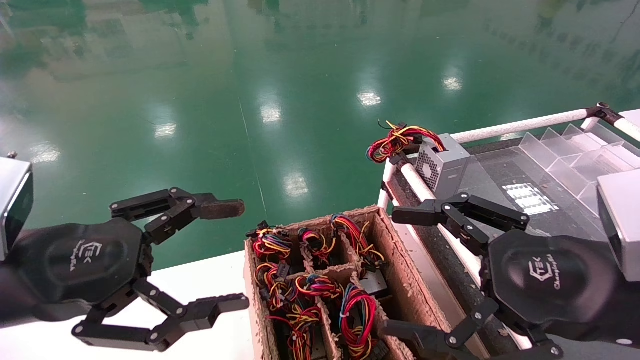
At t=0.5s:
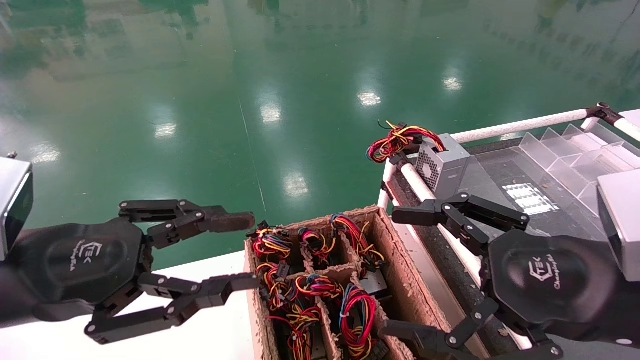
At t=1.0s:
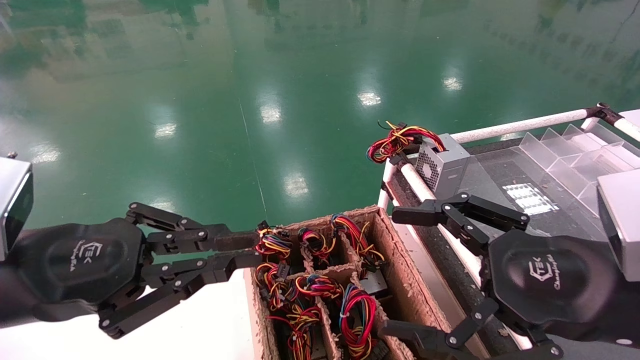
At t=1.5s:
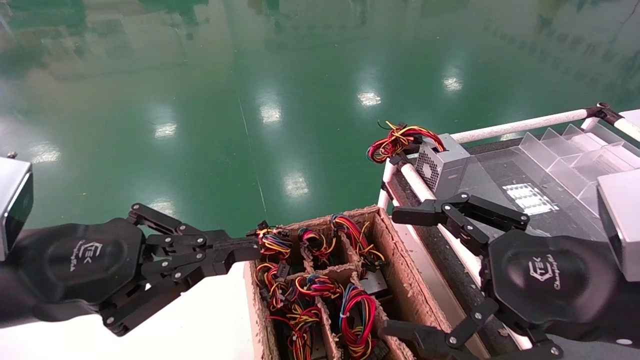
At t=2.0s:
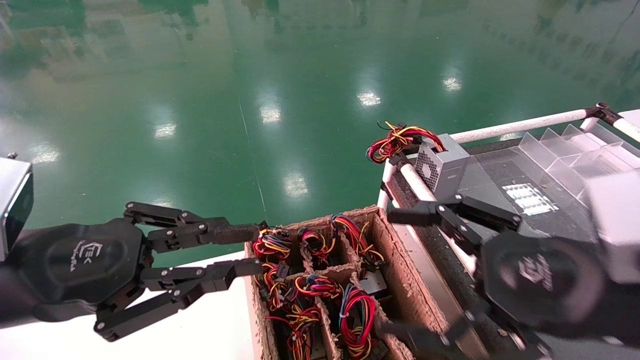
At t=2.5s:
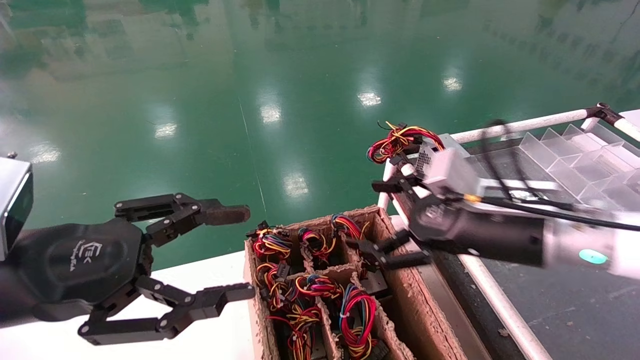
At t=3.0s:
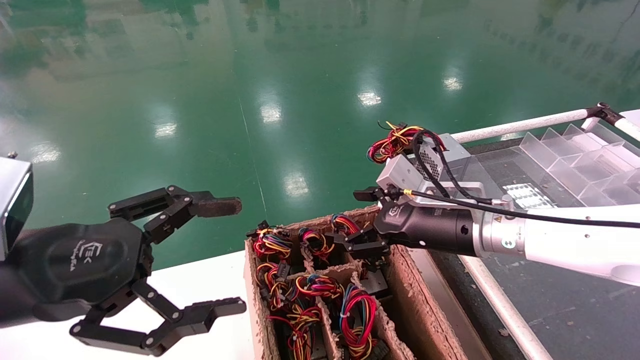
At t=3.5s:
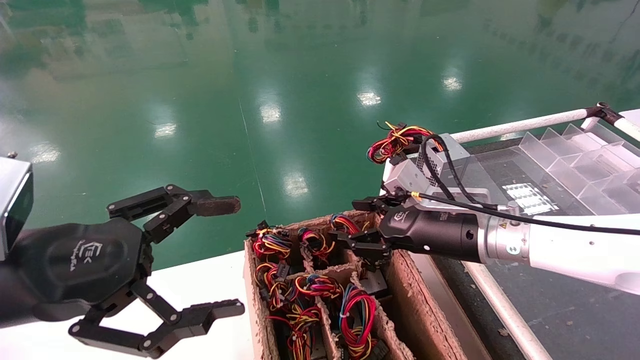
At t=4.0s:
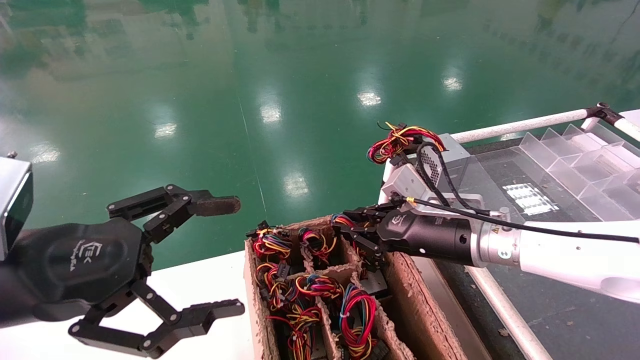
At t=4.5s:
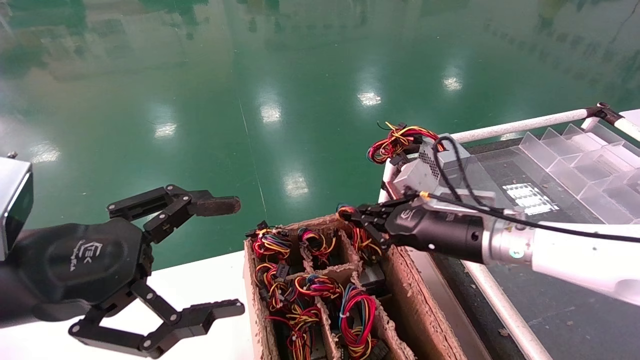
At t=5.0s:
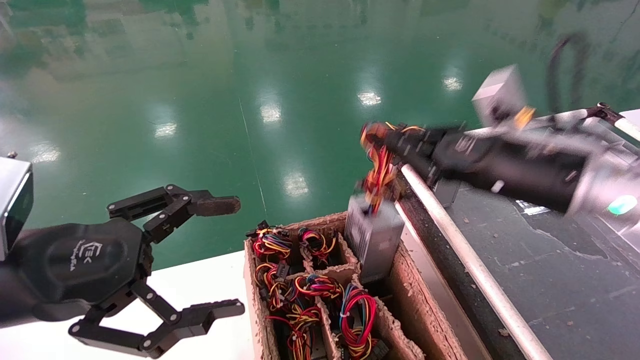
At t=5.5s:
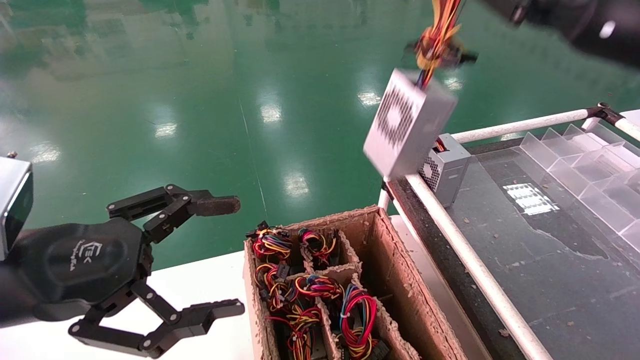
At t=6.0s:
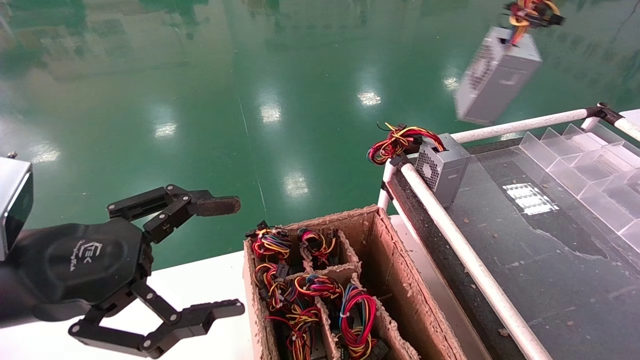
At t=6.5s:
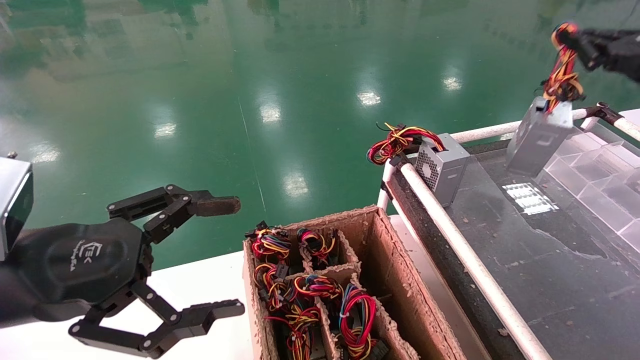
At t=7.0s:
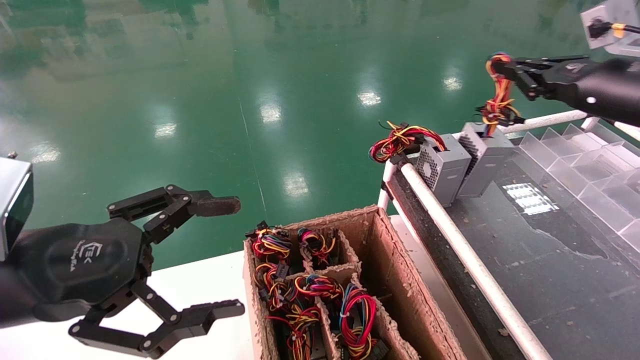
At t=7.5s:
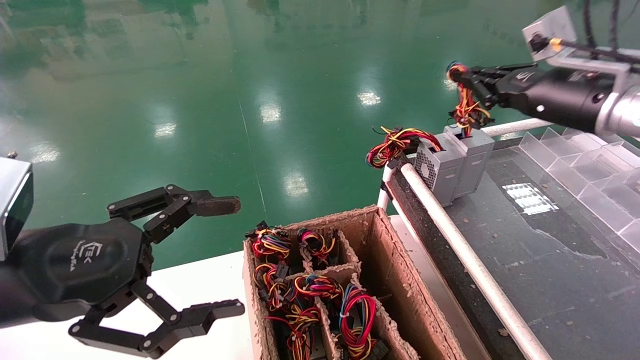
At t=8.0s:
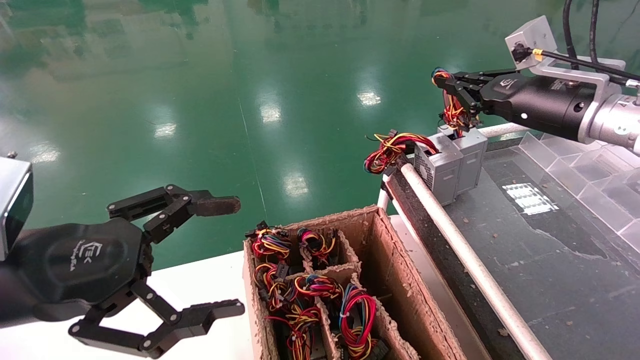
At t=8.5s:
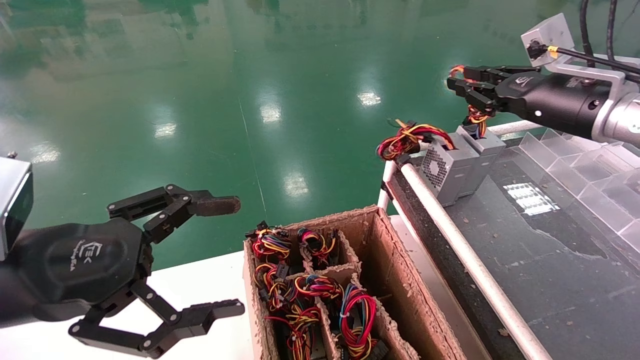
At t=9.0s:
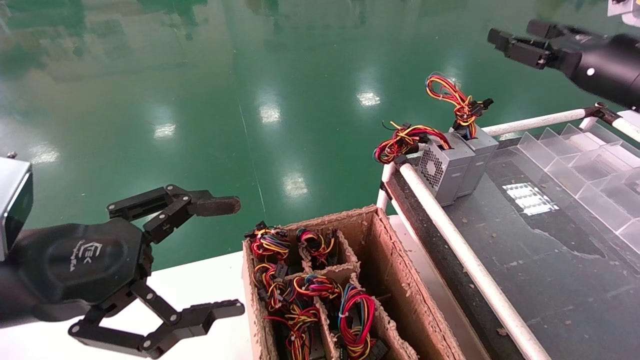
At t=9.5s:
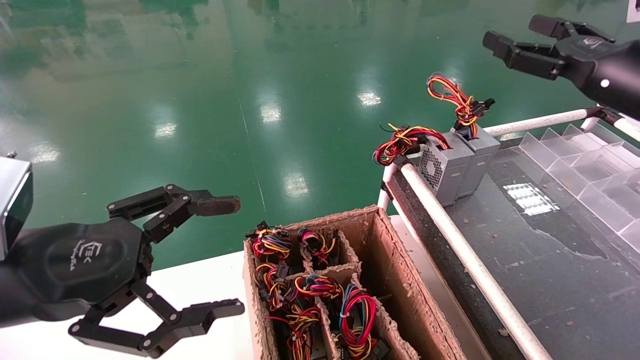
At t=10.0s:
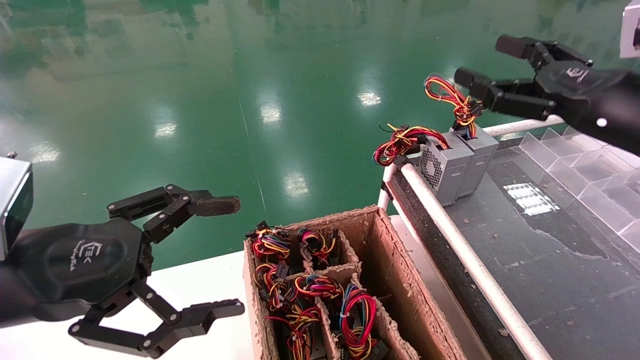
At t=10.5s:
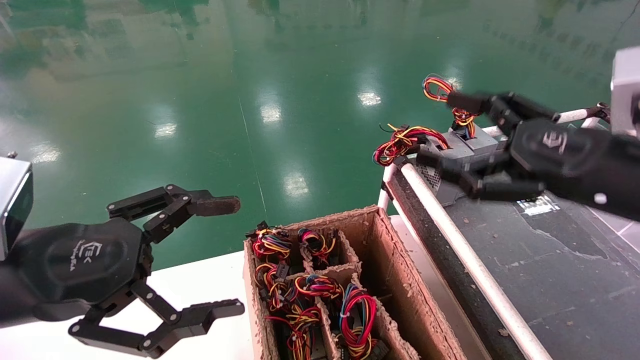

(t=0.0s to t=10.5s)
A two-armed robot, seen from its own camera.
Step, t=1.5s - t=4.0s: Grab and lift the power supply from the large box.
Step, t=4.5s - t=8.0s: Place the power supply on the operating table.
t=0.0s - t=2.0s: The left gripper closes its fingers.
t=2.0s - t=4.0s: The right gripper travels forward and to the left by roughly 20 cm, and closes up. Meanwhile the left gripper opens up.
t=4.0s - t=6.5s: The right gripper travels to the right and upward by some 30 cm.
t=6.5s - t=8.5s: The right gripper travels to the left by approximately 10 cm.
t=8.5s - t=10.5s: The right gripper moves backward, approximately 15 cm, and opens.

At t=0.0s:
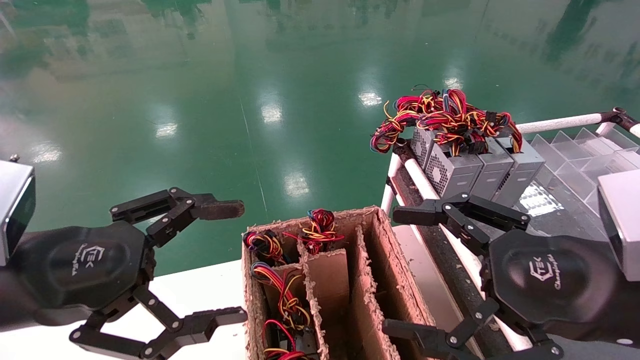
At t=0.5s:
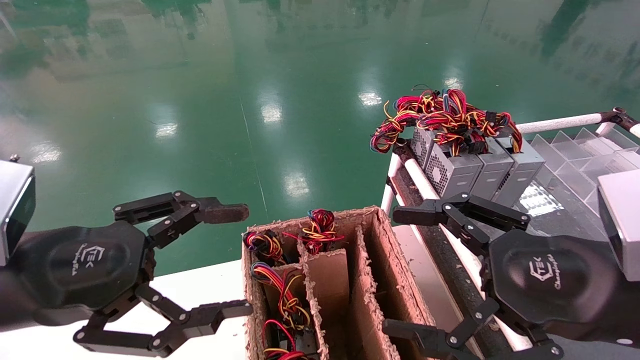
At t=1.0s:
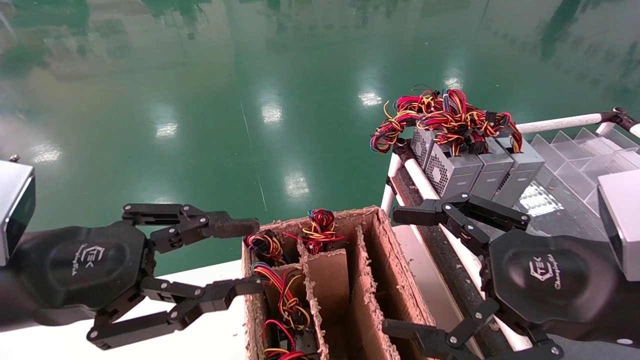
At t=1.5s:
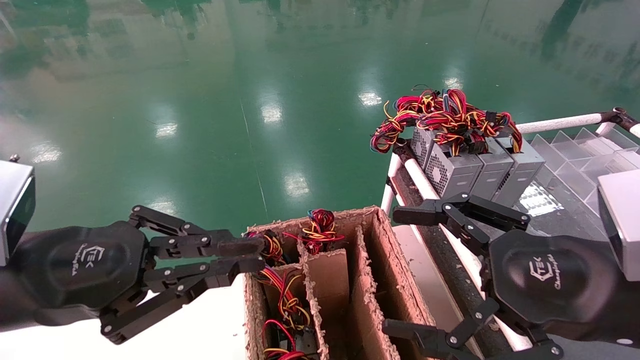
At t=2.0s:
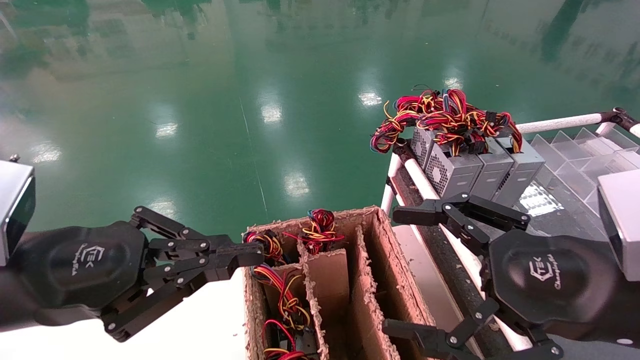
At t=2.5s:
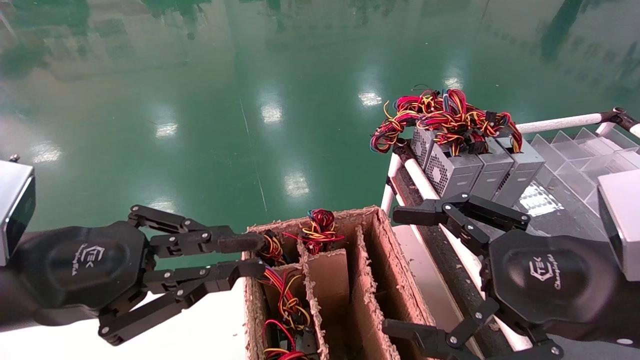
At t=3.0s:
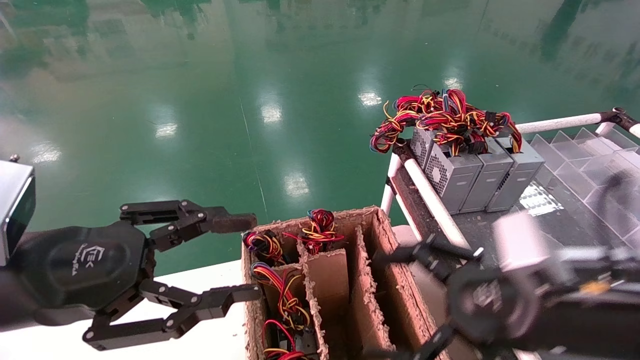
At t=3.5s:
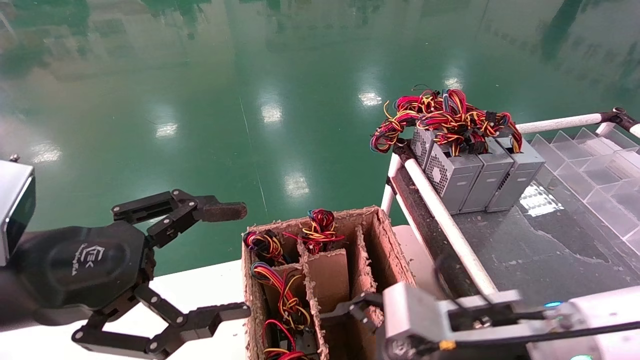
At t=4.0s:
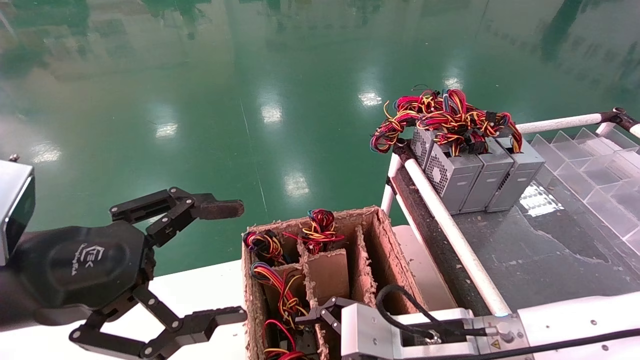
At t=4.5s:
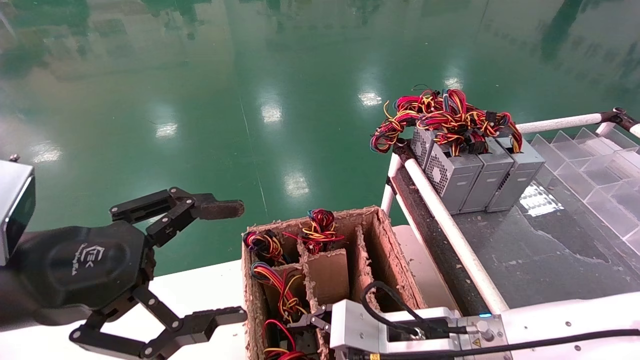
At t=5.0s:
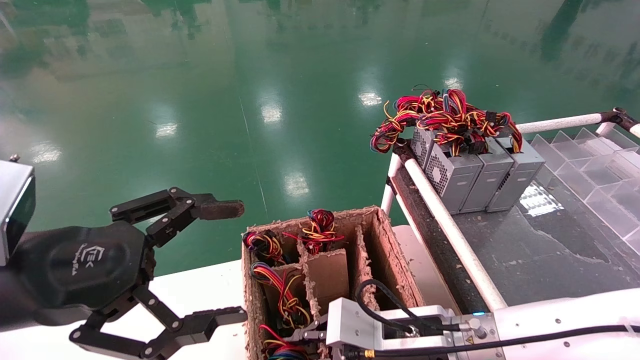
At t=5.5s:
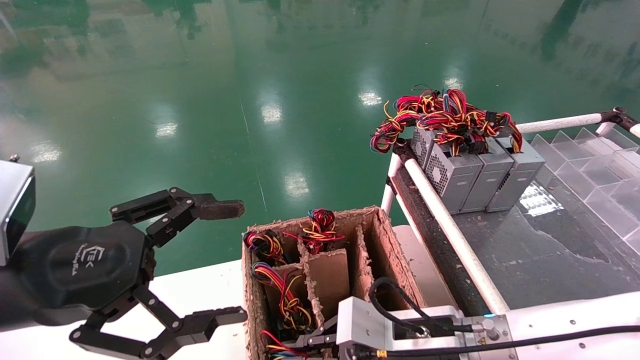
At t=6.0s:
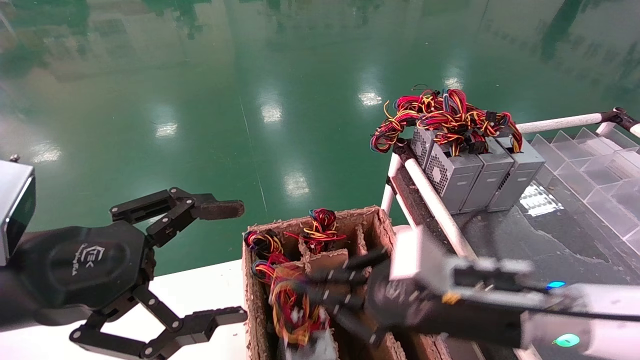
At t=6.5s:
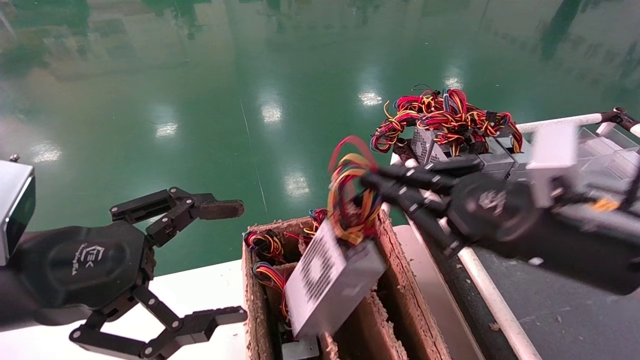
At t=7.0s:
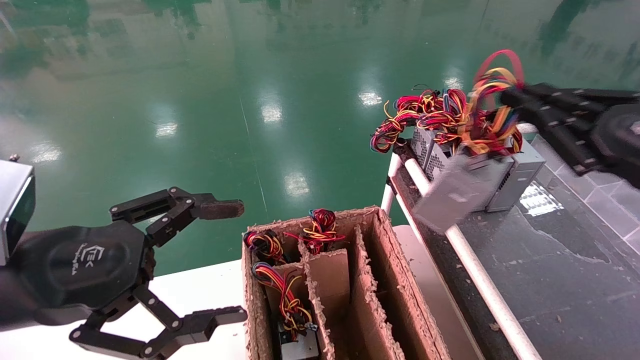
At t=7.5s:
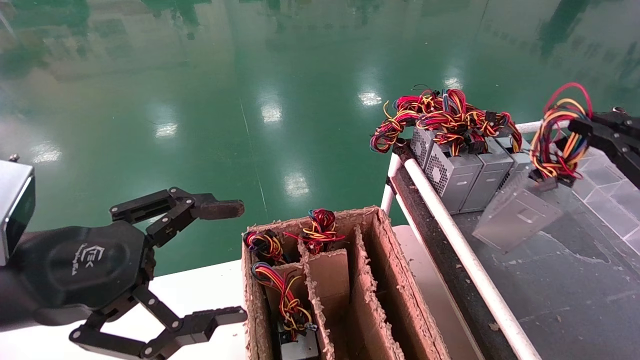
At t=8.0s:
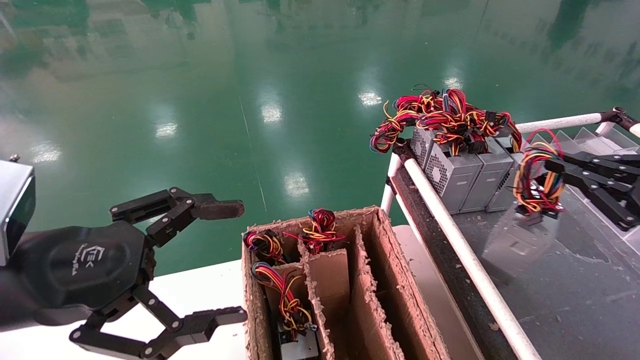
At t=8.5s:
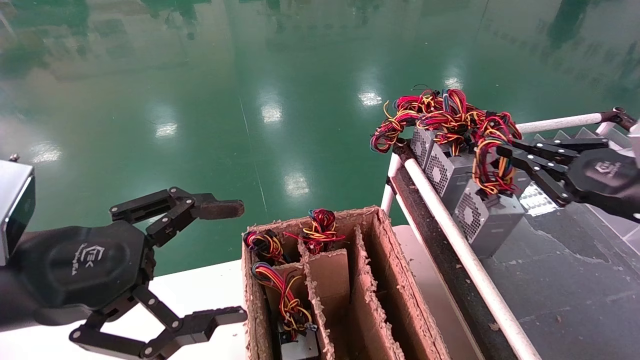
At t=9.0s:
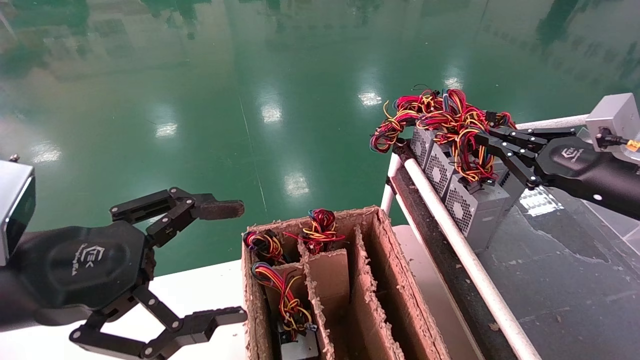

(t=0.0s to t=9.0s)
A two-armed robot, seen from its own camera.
Step, t=2.0s - t=5.0s: Grab and lift the power supply from the large box.
t=0.0s - t=2.0s: The left gripper closes its fingers.
t=2.0s - t=4.5s: The right gripper is displaced downward, to the left and forward by about 20 cm, while the left gripper opens.
t=4.5s - t=7.0s: The right gripper goes roughly 30 cm to the right and upward, and closes.
t=7.0s - t=9.0s: The right gripper travels forward by approximately 10 cm.
